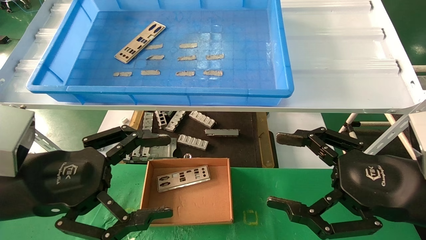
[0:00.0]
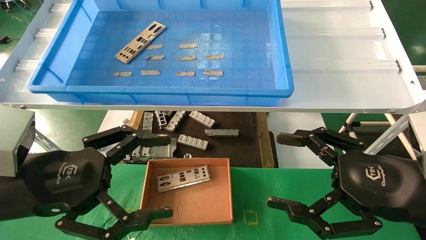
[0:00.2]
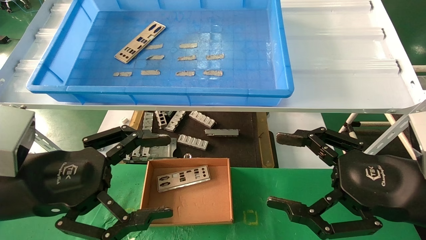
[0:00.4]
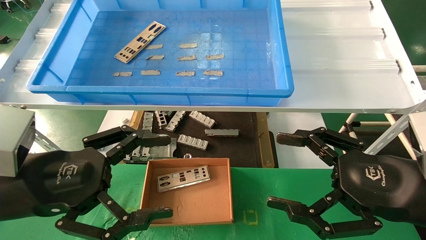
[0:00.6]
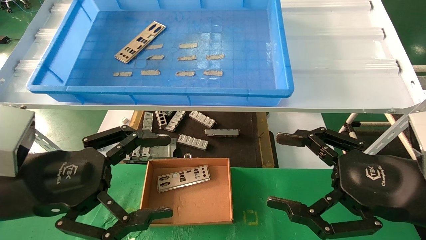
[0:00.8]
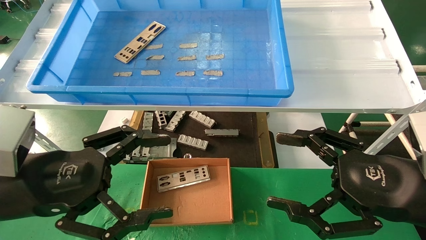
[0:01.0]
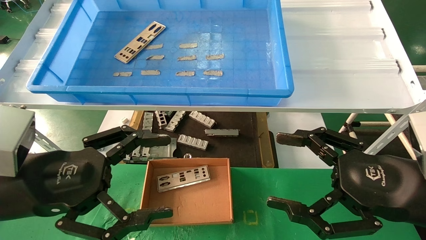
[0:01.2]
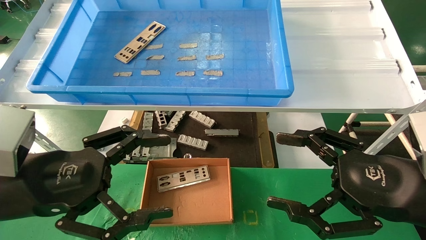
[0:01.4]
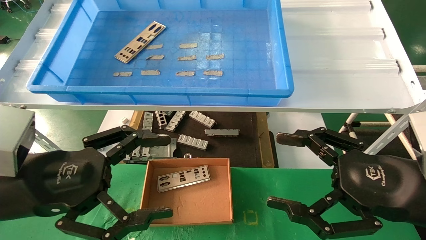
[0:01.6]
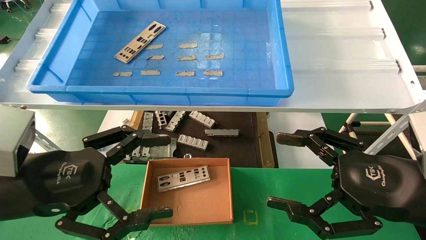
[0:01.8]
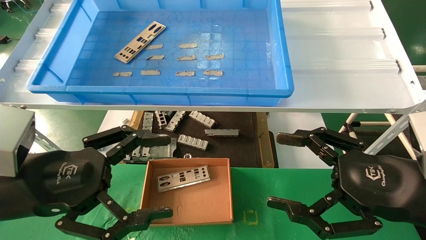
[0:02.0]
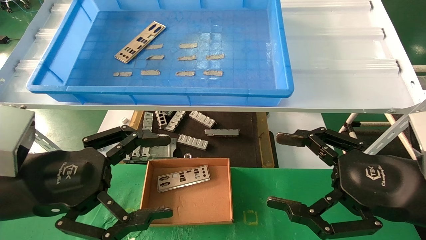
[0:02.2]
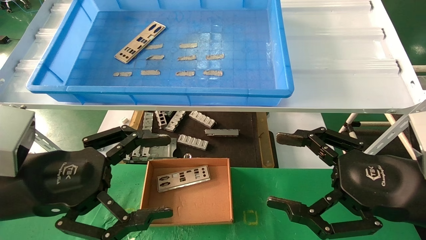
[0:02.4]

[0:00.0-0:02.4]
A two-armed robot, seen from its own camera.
Task of the whole recording: pick up the parts on the tray and put them in the cardboard box.
0:00.0 to 0:02.4: Both grippers stay put.
